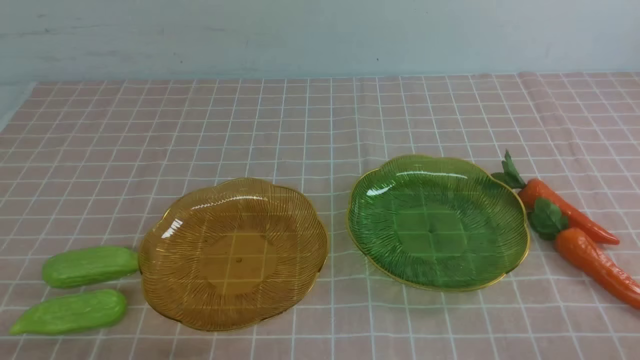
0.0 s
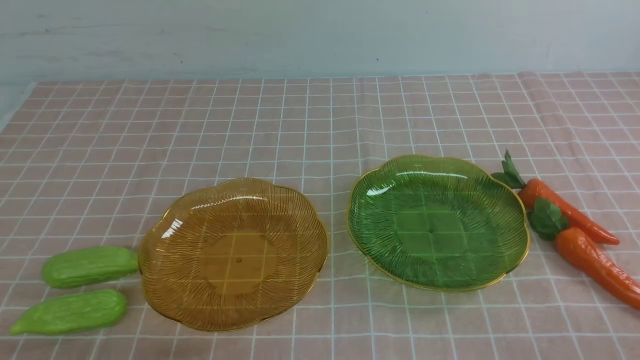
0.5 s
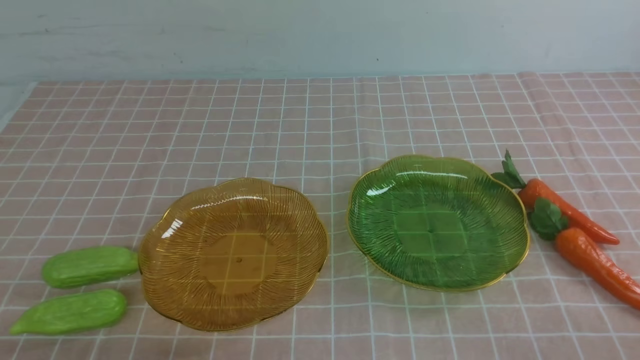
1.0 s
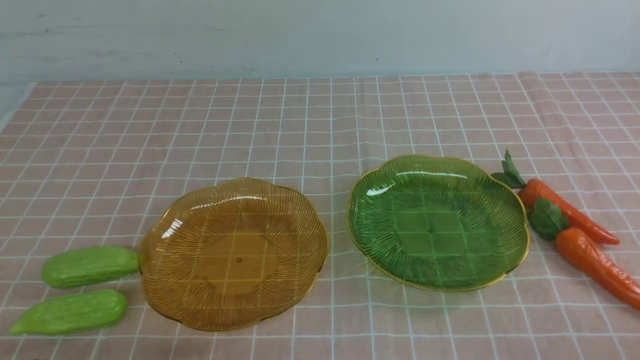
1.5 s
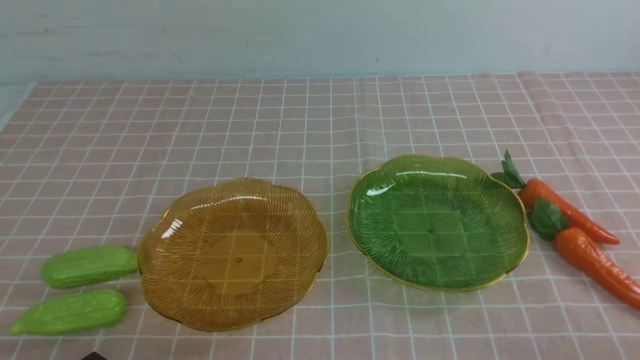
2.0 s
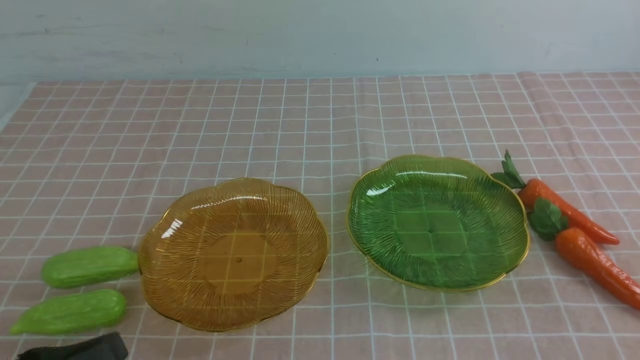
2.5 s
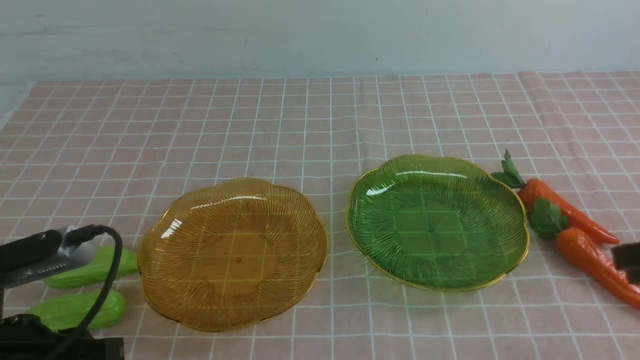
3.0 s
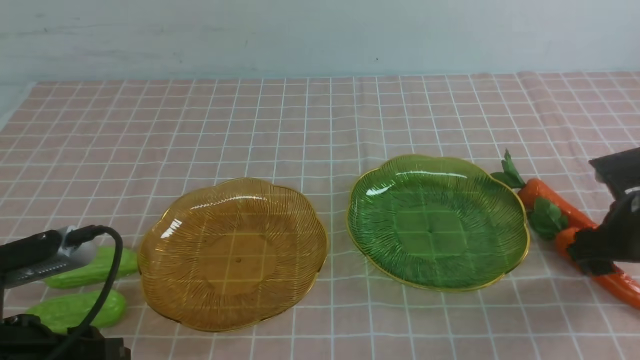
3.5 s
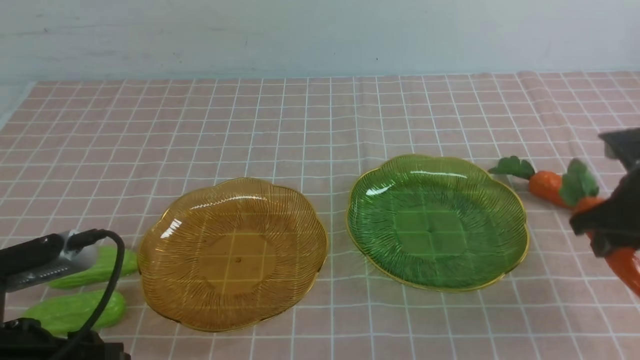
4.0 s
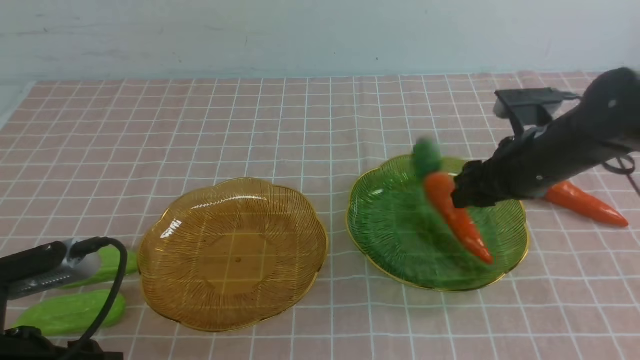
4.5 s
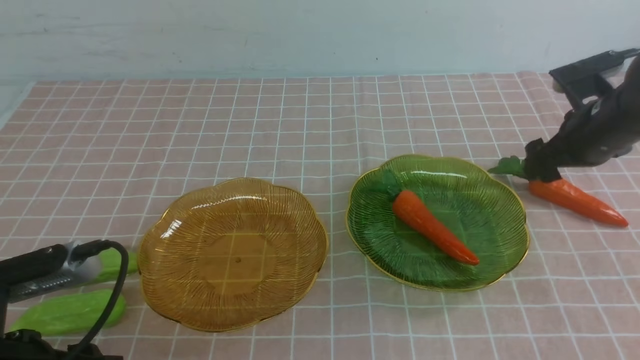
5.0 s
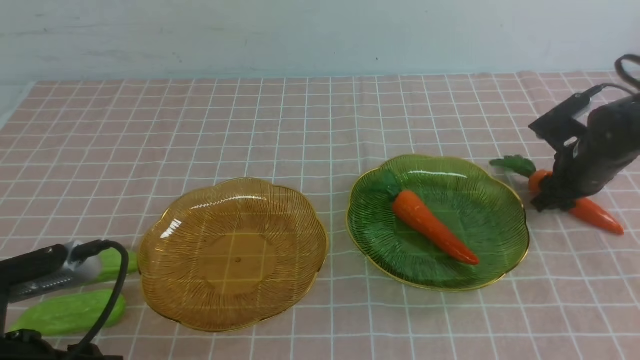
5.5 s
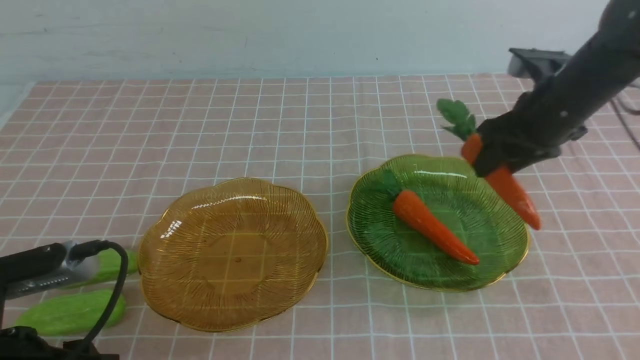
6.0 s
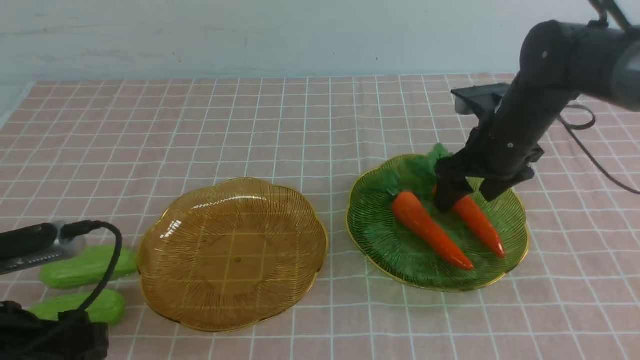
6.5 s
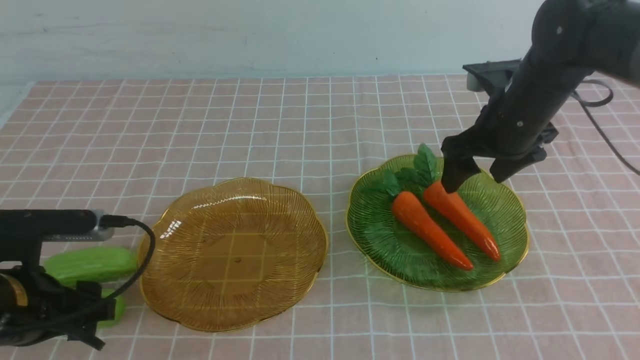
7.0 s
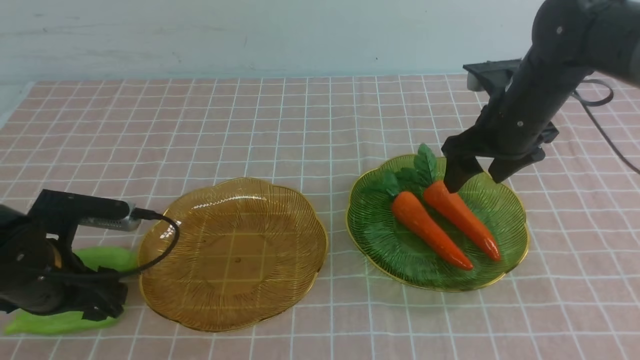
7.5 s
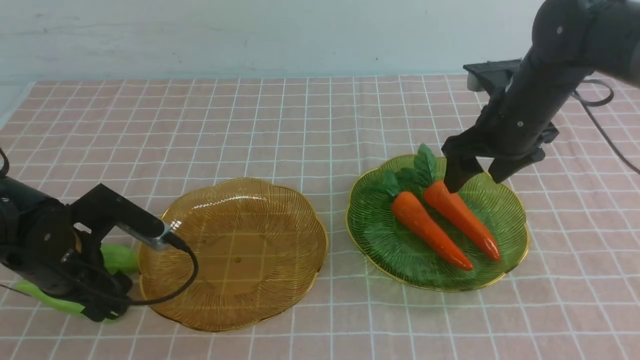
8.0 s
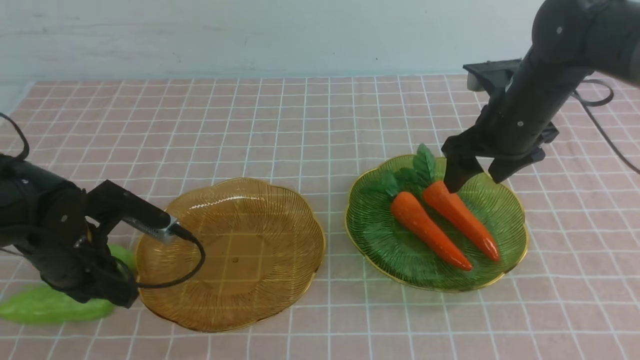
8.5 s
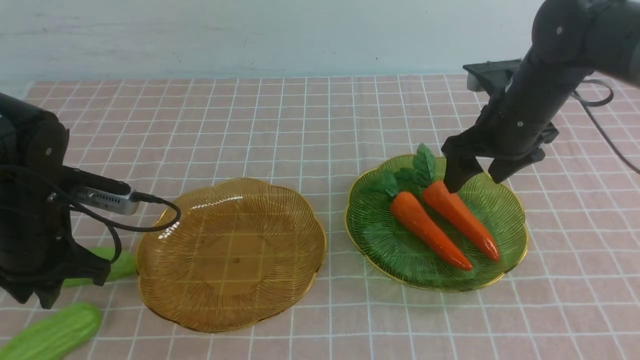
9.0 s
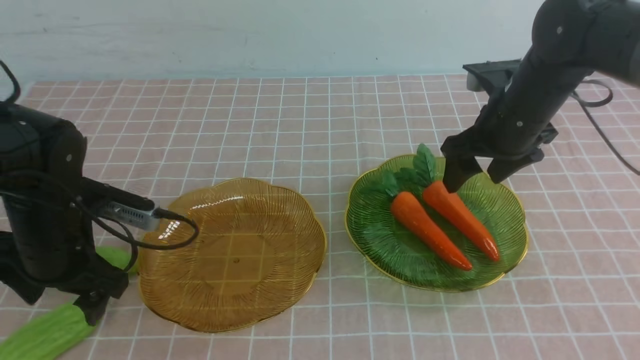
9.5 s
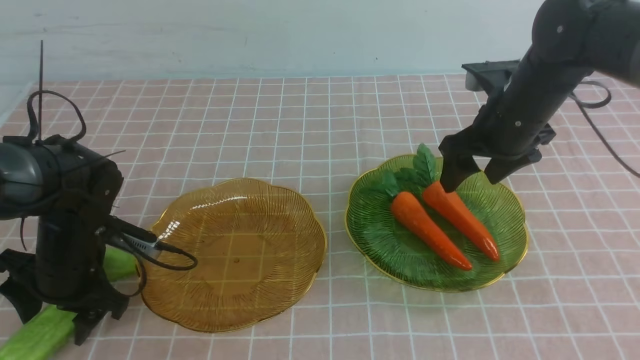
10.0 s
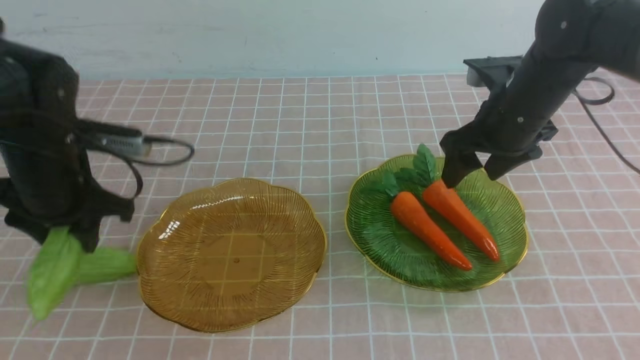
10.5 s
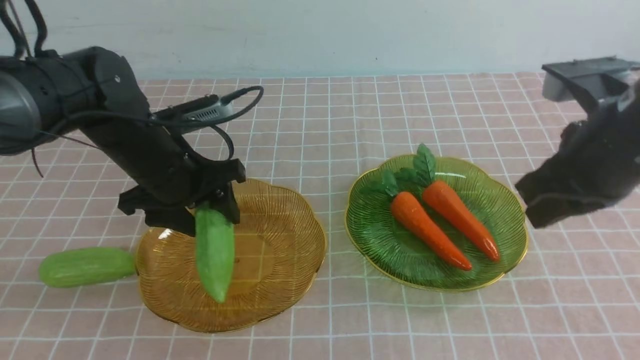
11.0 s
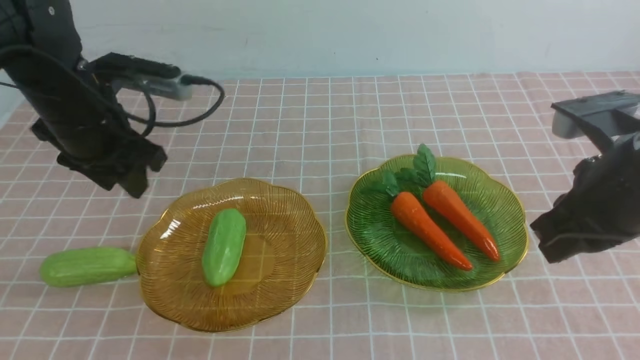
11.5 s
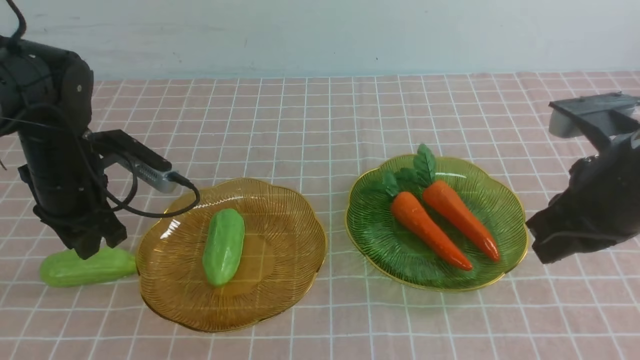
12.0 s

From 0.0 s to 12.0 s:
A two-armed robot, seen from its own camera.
Step, from 0.0 s to 6.0 s: use the right arm to grab a carrot and put it into the right plate.
From 2.0 s to 4.0 s: The left gripper heads forward and upward, covering about 10 cm, and opens; the right gripper moves forward, some 25 cm, and opens its fingers.
From 4.0 s to 6.0 s: The right gripper goes left and right, some 10 cm each way, reversing 2 times, and opens up.
From 6.0 s to 8.0 s: The left gripper is displaced forward by about 15 cm, and closes.
From 8.0 s to 10.0 s: The right gripper changes place by some 5 cm, and closes up; the left gripper is displaced upward by about 5 cm, and opens.
From 10.0 s to 12.0 s: The right gripper travels backward by roughly 10 cm, and closes, while the left gripper moves downward, some 10 cm.

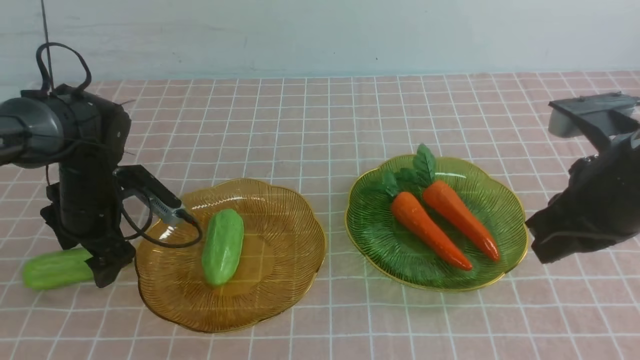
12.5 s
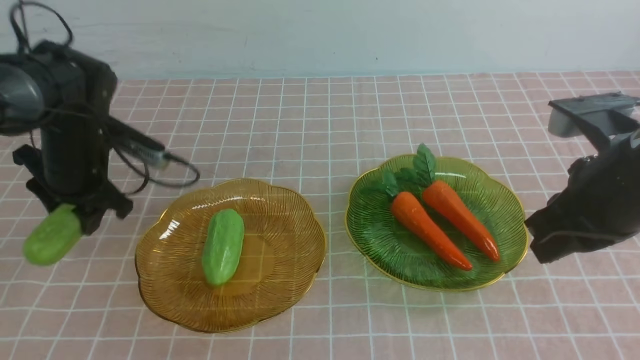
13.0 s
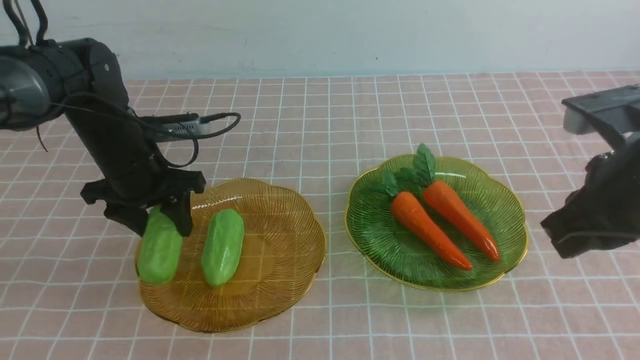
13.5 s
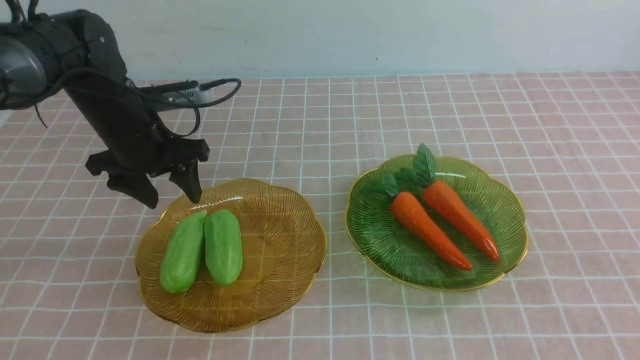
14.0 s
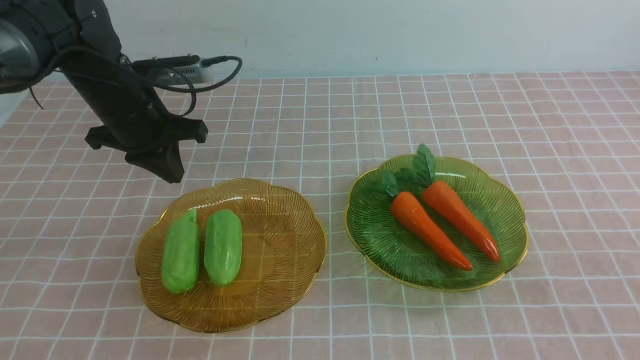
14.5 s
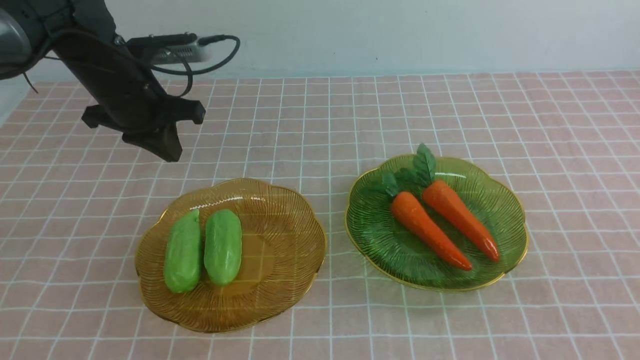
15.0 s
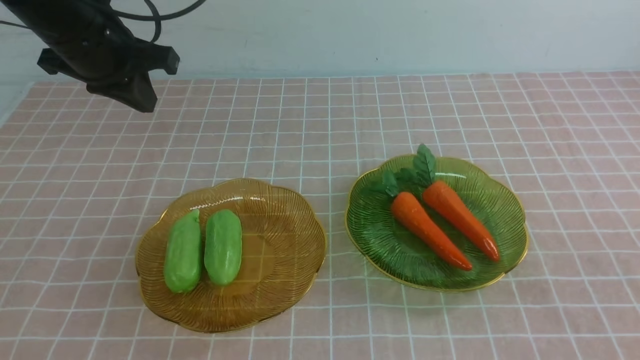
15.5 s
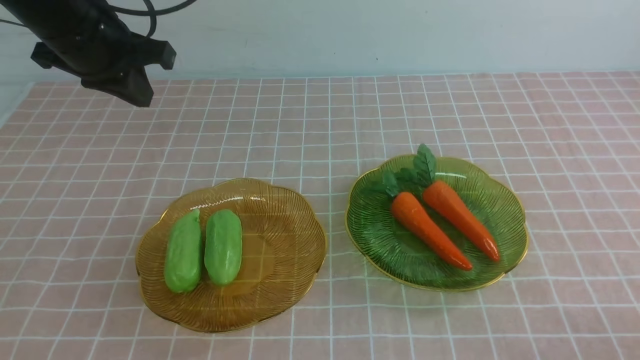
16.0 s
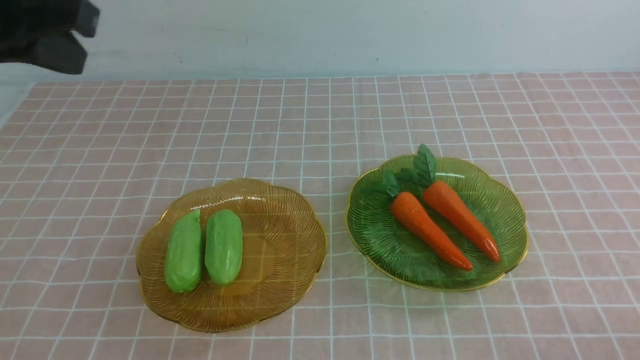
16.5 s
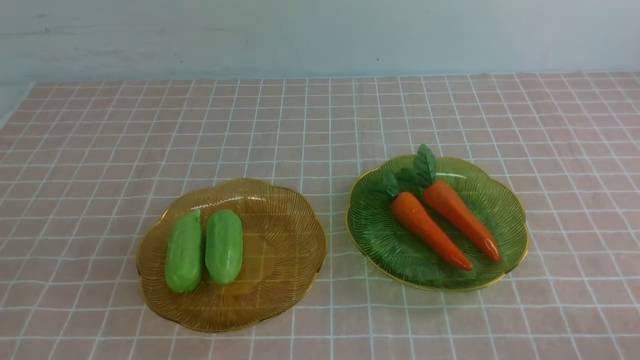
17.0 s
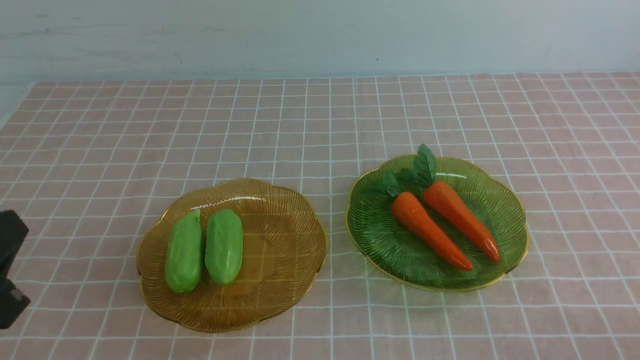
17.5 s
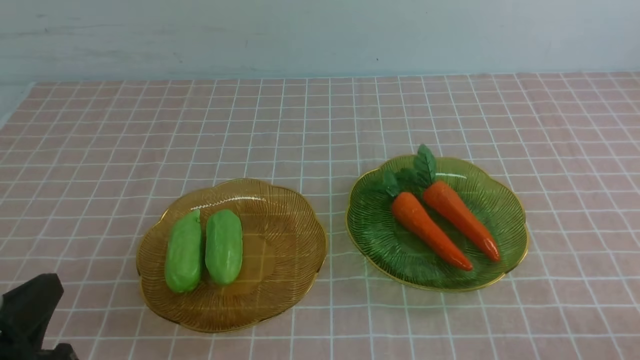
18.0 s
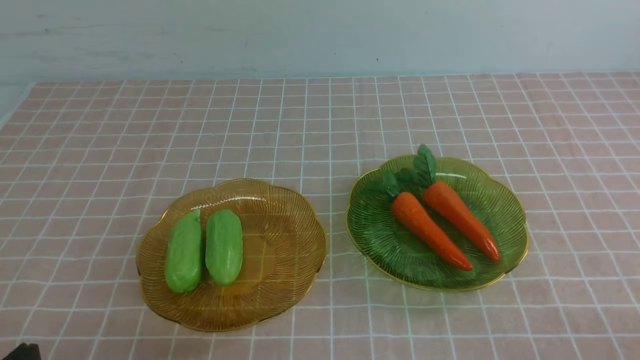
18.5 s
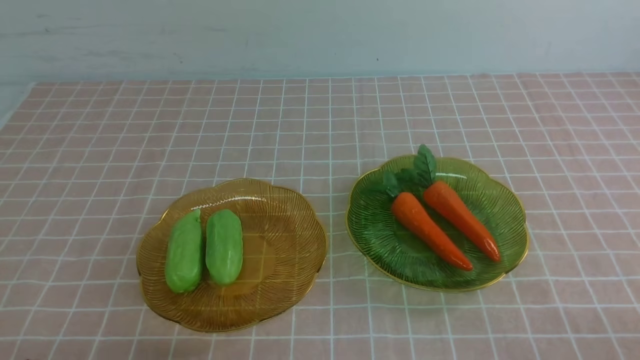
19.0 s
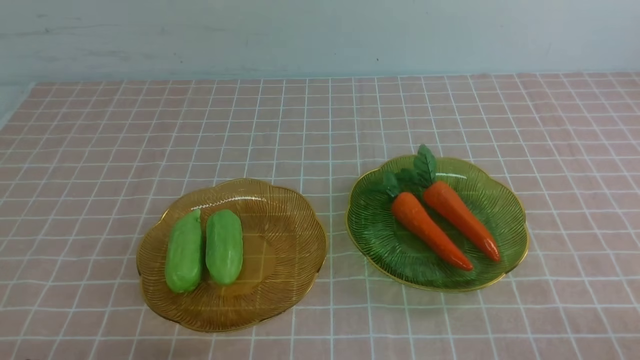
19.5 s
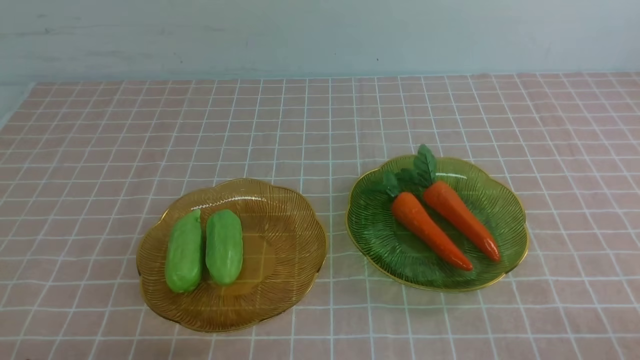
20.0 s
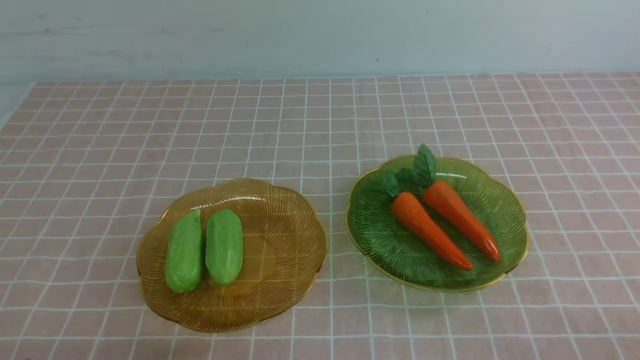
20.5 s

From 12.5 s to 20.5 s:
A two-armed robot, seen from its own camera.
From 12.5 s to 14.5 s: The left gripper travels upward by about 10 cm, and closes its fingers; the right gripper travels backward by approximately 15 cm.
From 14.5 s to 16.5 s: The left gripper moves backward, about 30 cm.
From 16.5 s to 18.5 s: The left gripper travels downward by approximately 20 cm.
From 18.5 s to 20.5 s: Both grippers stay about where they are.
